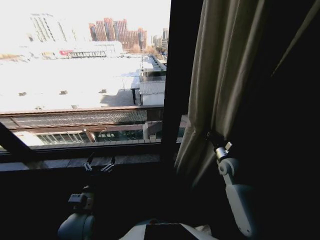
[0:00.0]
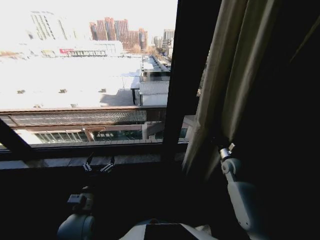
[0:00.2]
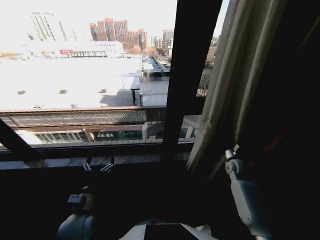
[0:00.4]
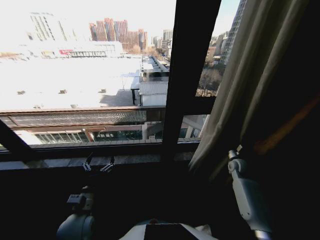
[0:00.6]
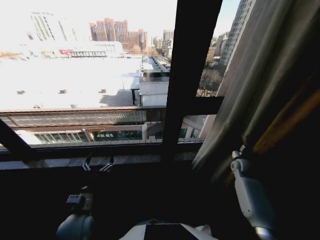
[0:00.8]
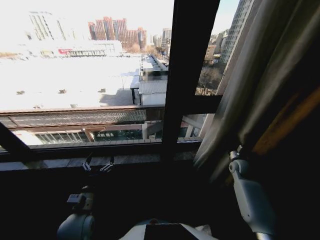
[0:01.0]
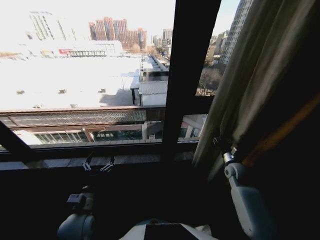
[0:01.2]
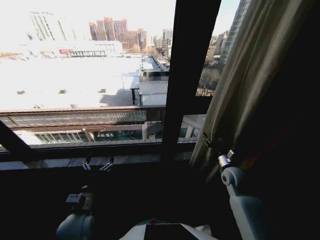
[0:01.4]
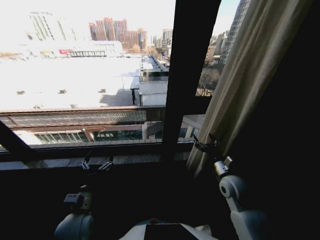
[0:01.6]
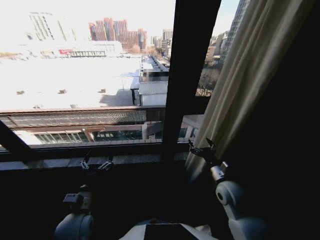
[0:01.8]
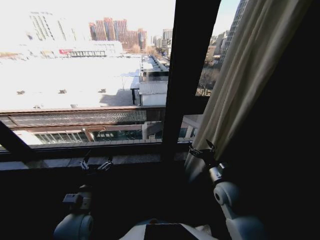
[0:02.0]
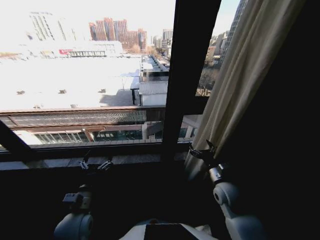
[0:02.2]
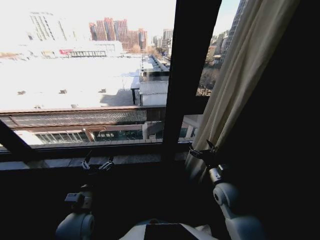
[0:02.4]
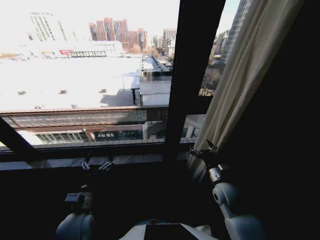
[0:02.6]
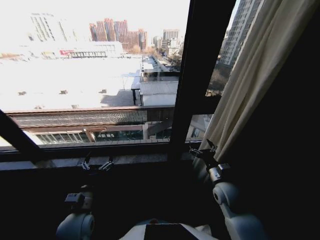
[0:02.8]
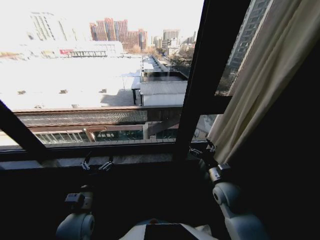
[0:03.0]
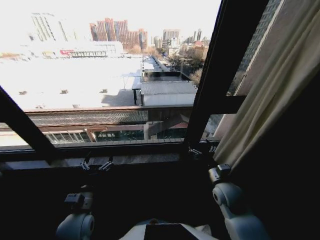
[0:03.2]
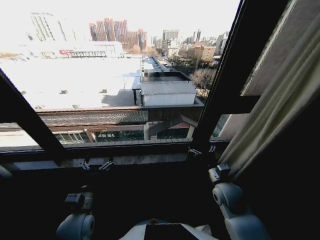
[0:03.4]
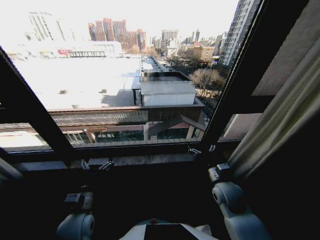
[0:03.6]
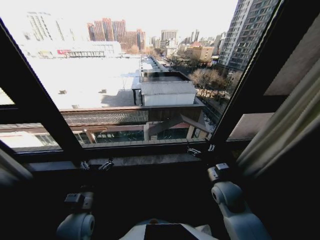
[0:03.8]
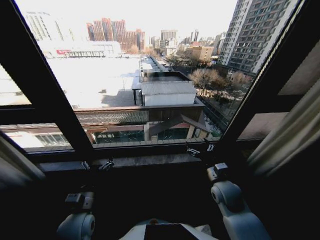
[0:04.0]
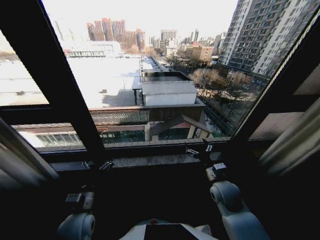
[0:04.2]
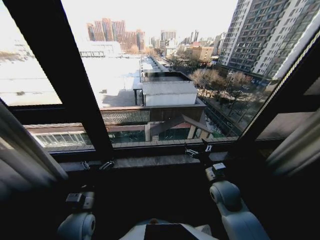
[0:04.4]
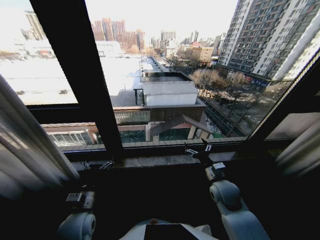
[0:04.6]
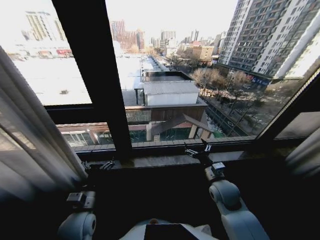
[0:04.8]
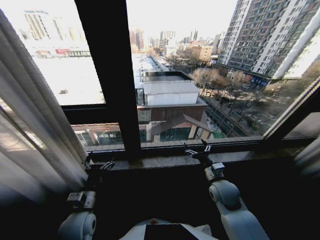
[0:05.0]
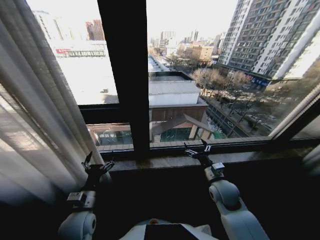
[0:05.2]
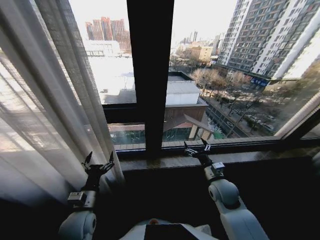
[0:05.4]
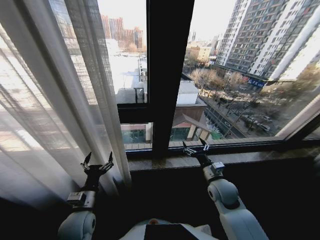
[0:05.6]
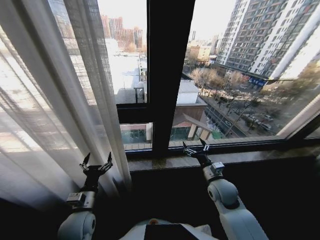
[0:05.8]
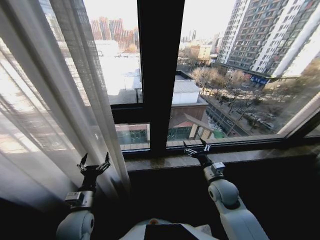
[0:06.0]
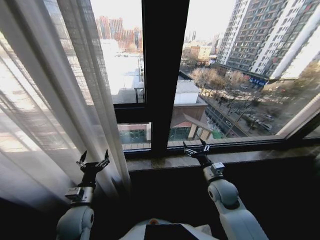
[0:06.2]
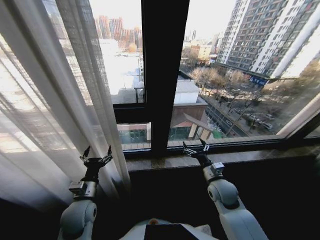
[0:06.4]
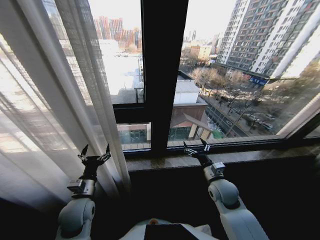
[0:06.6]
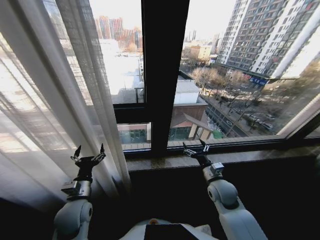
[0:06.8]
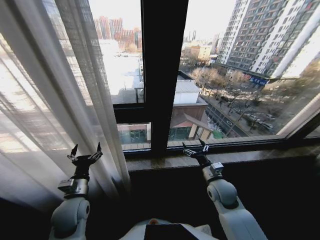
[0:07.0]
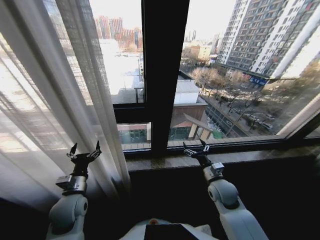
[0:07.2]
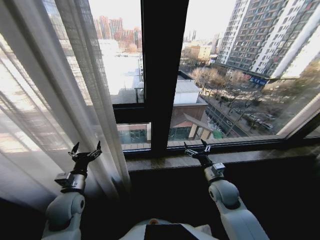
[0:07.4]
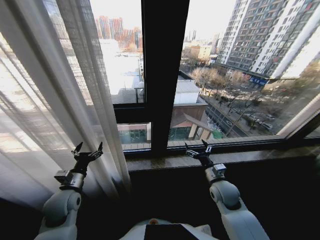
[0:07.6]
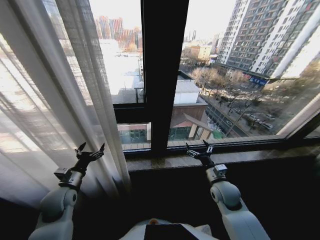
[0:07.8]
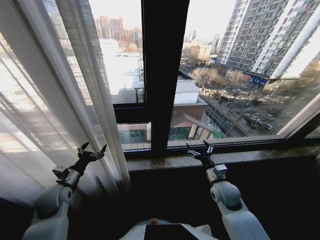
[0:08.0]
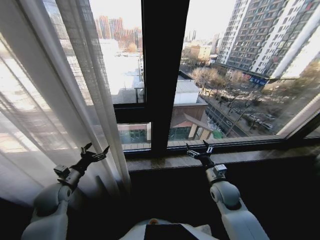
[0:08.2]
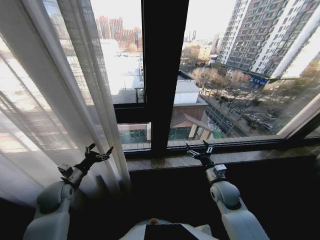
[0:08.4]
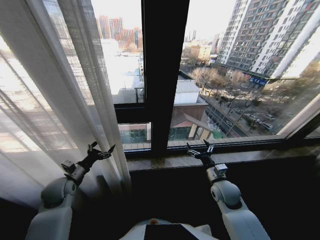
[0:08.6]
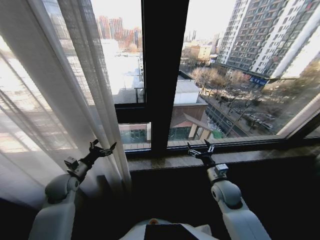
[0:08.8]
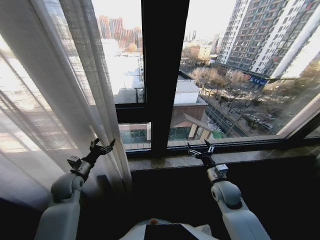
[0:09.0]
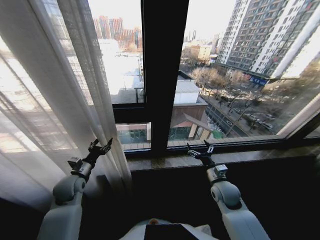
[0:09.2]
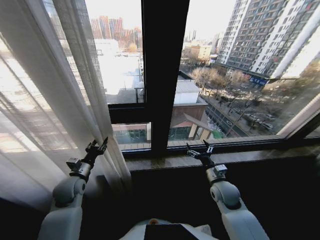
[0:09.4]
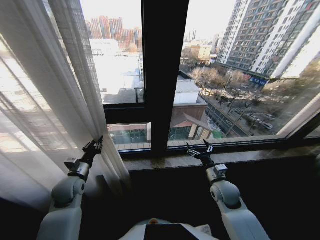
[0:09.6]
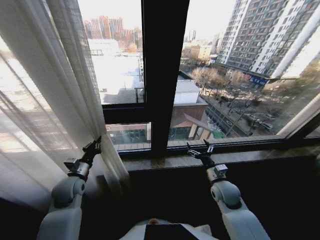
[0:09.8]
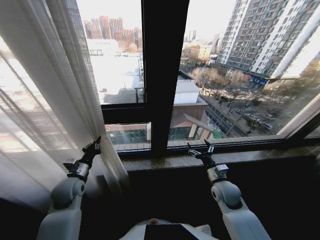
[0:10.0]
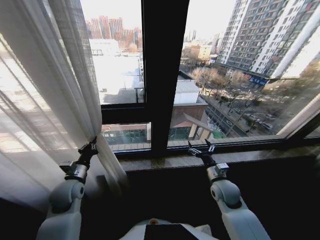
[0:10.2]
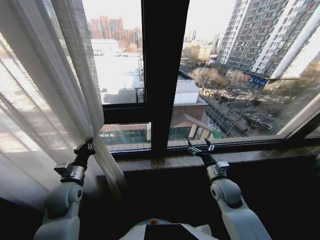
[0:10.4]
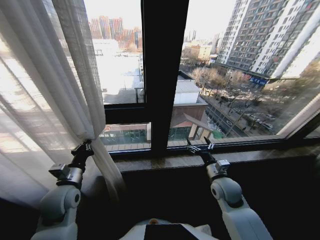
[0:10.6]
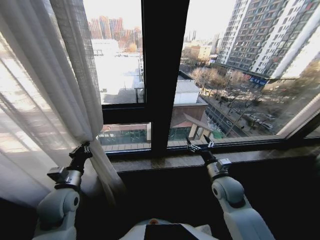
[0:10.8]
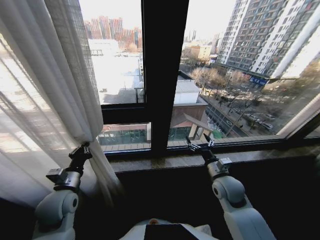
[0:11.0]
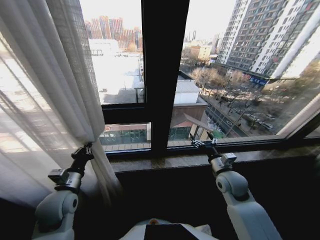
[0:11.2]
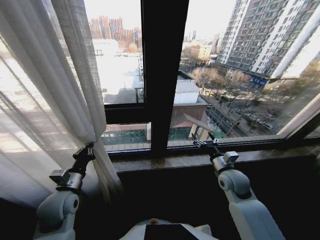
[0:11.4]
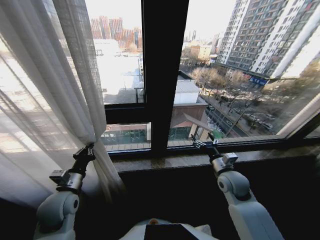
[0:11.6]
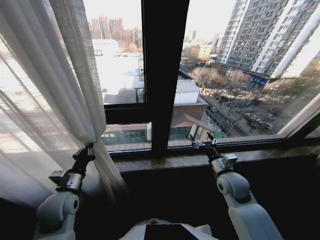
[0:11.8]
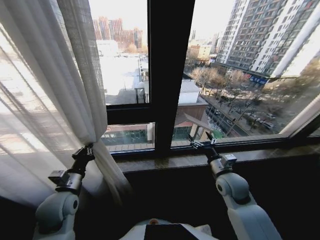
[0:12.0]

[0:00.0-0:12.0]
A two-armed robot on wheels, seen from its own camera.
Task of the whole recording: Open the curtains by pulling them apart, changing their state from closed to fully open.
0:00.0 to 0:01.6: The right gripper moves backward, approximately 10 cm, reaches approximately 10 cm to the right, then returns, and opens.
0:06.0 to 0:07.6: The left gripper goes approximately 10 cm to the left and forward.
0:07.6 to 0:09.0: The left gripper heads forward, covering about 5 cm.
0:09.0 to 0:10.4: The left gripper shifts some 5 cm backward, and closes.

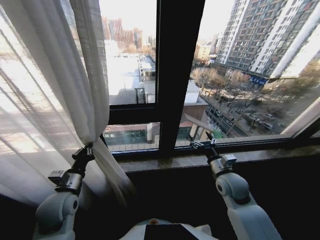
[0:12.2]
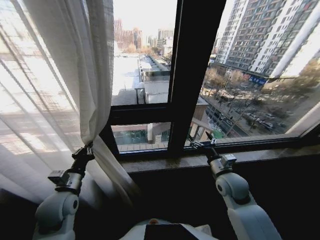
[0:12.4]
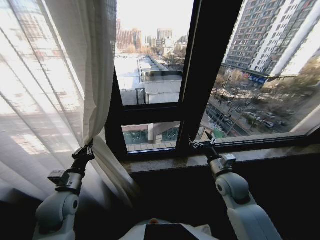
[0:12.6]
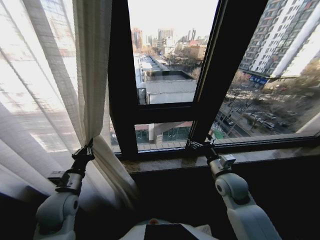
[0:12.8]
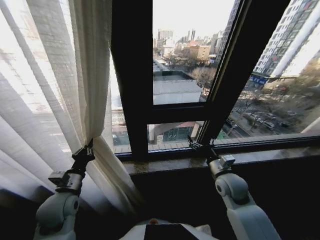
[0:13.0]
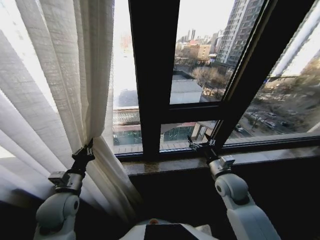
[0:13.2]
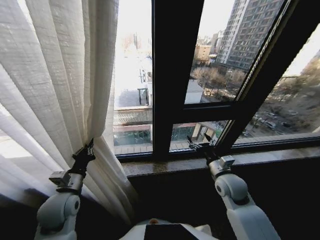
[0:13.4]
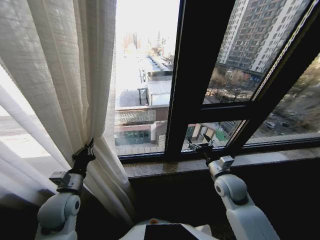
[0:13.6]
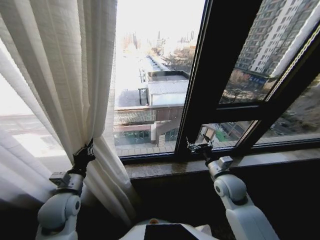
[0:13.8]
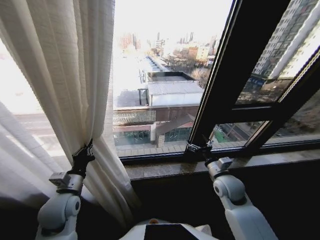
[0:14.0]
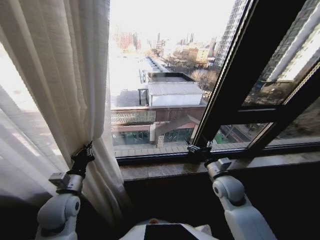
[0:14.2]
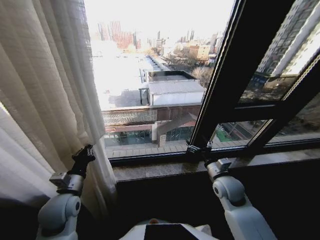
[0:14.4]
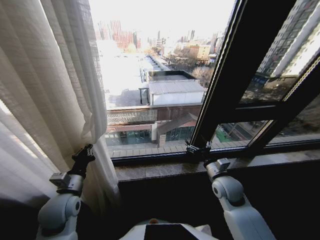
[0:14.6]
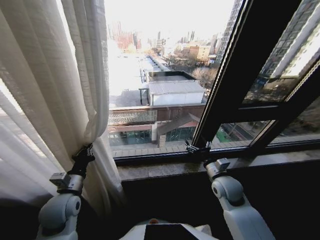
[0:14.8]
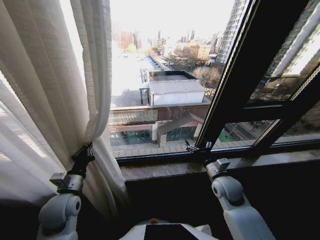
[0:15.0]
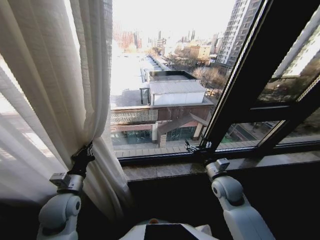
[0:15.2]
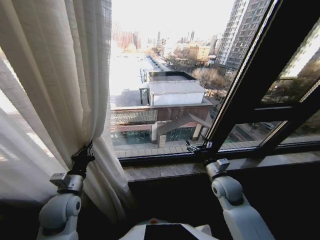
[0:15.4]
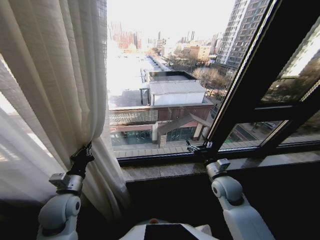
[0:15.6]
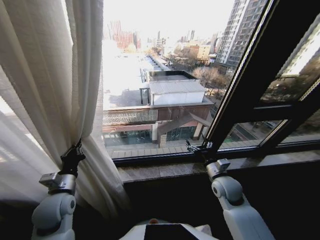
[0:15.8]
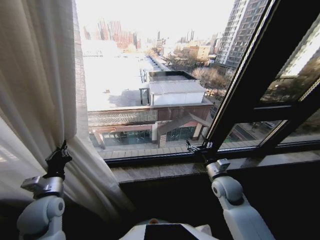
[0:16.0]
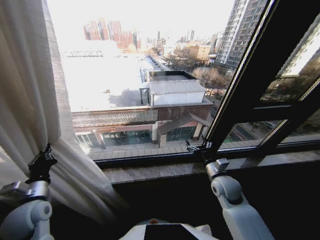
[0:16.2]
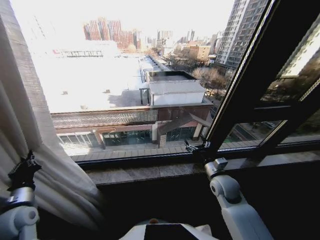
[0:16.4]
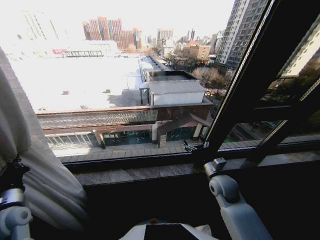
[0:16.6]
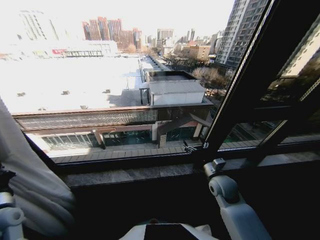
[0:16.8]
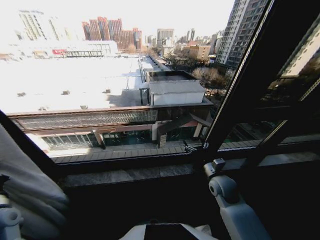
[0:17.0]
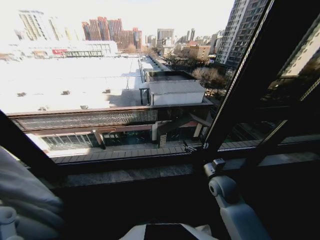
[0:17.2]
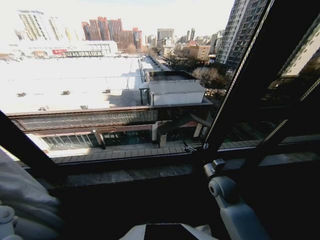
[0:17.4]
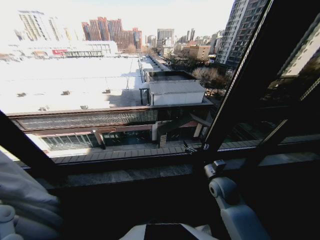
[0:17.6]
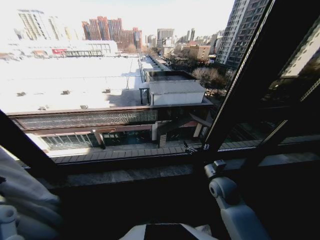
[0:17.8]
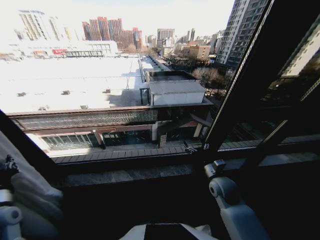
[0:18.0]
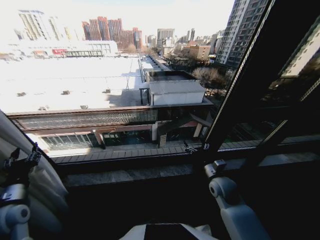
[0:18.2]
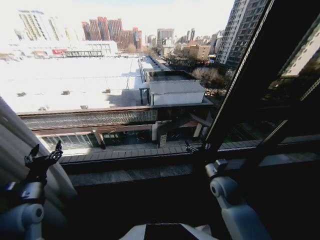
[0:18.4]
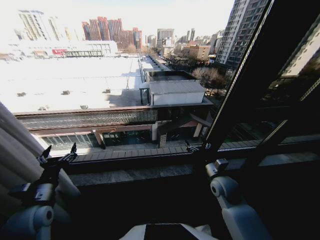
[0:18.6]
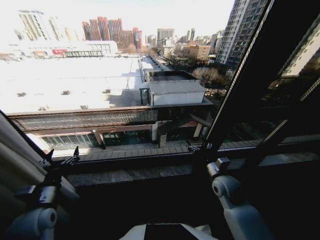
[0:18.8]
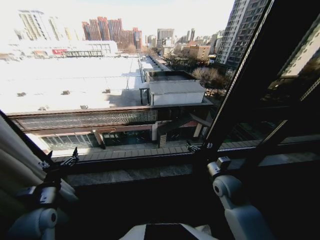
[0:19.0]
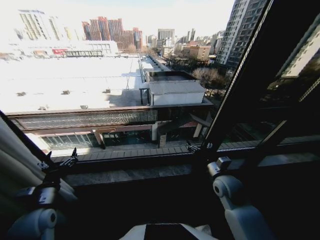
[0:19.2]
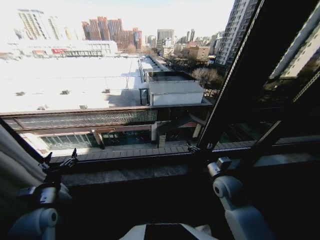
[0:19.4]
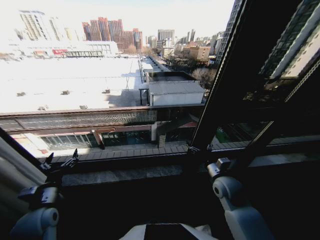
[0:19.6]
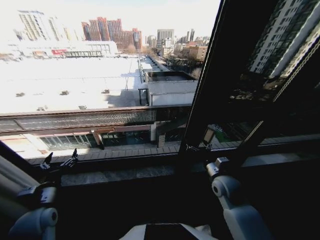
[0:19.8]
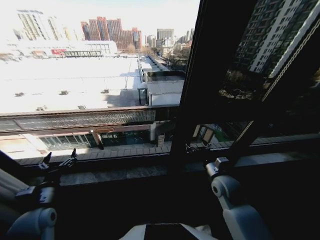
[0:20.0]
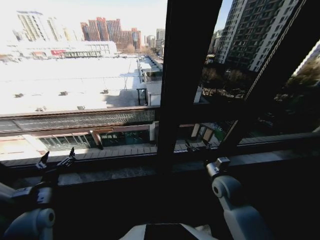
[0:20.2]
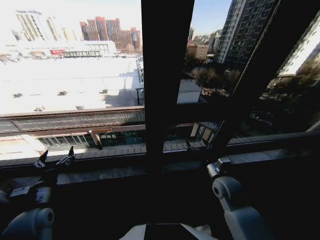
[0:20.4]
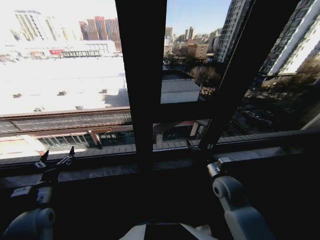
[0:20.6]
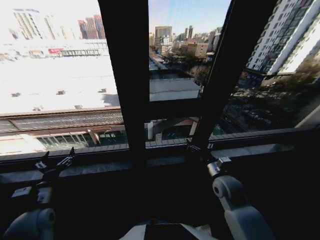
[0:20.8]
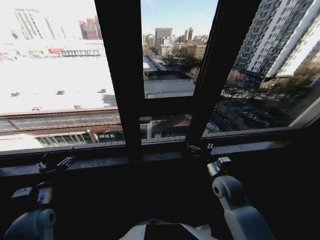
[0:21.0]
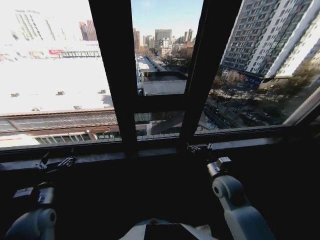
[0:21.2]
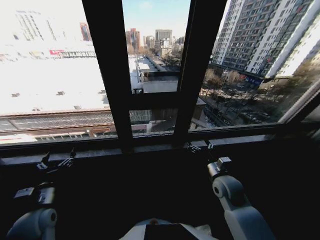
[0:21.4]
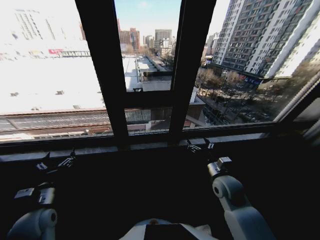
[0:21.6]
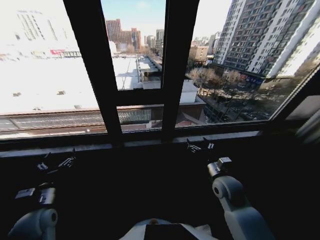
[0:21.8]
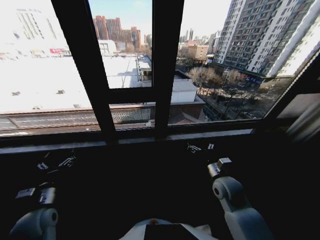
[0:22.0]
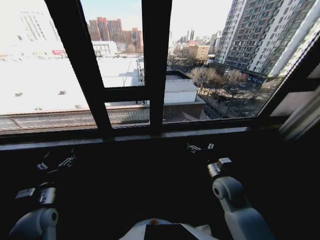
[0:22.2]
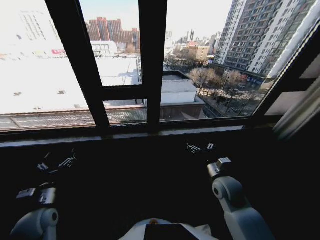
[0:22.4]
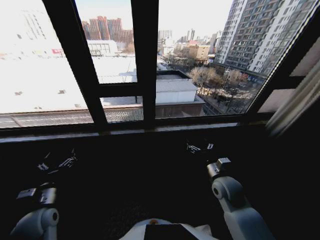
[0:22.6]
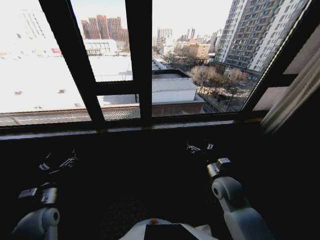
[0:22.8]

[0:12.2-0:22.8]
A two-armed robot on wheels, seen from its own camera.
Task of the whole recording: Open the curtains by pulling them apart, changing their state from closed to fully open.
0:15.2 to 0:16.8: The left gripper moves to the left, roughly 15 cm.
0:16.8 to 0:18.2: The left gripper opens its fingers.
0:18.2 to 0:19.8: The left gripper goes roughly 5 cm to the right, and opens up.
